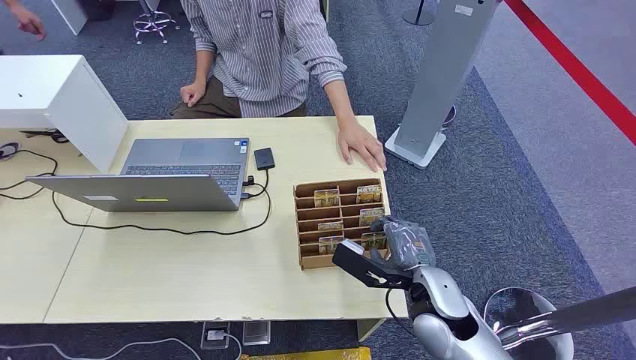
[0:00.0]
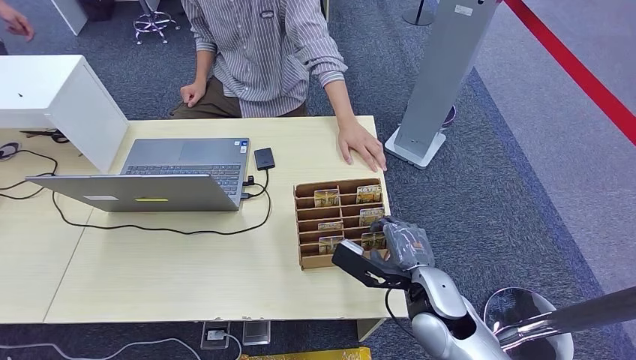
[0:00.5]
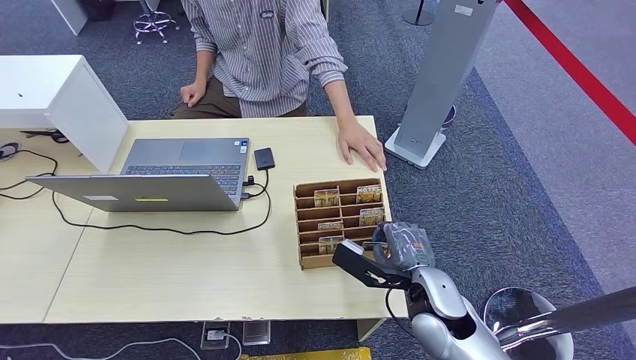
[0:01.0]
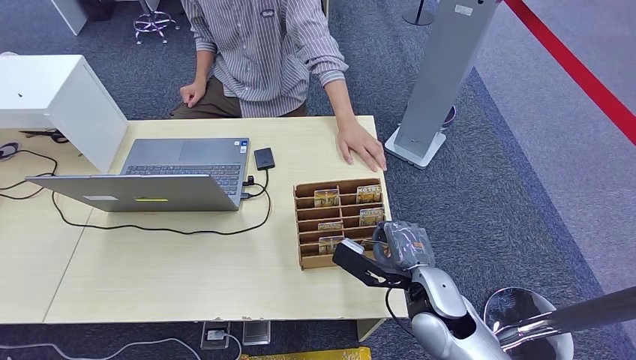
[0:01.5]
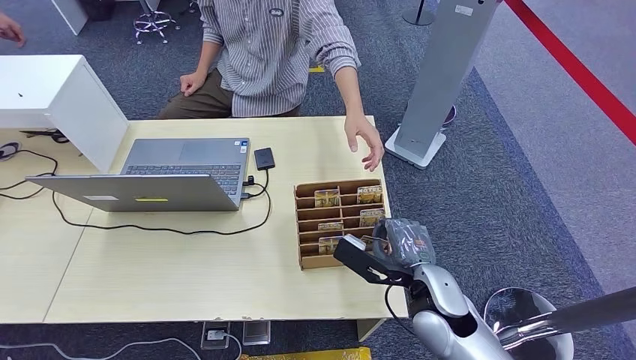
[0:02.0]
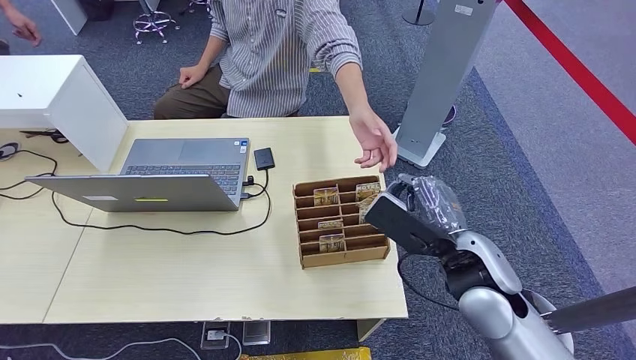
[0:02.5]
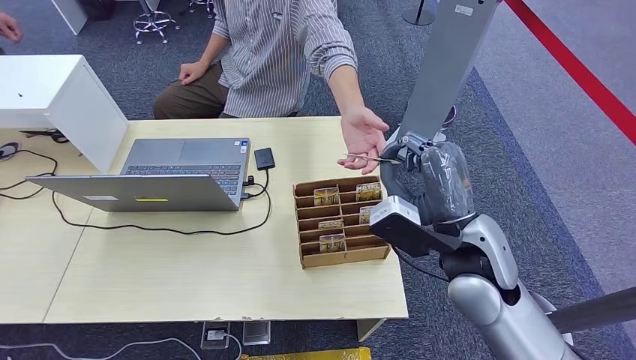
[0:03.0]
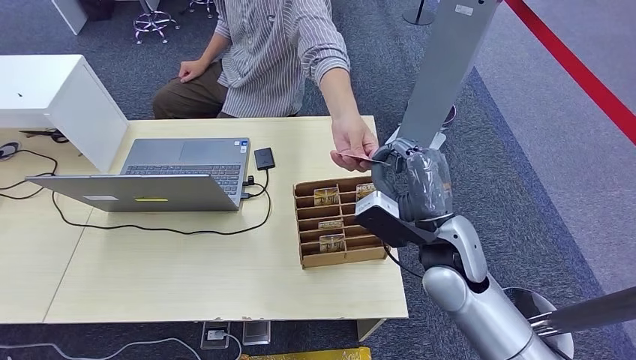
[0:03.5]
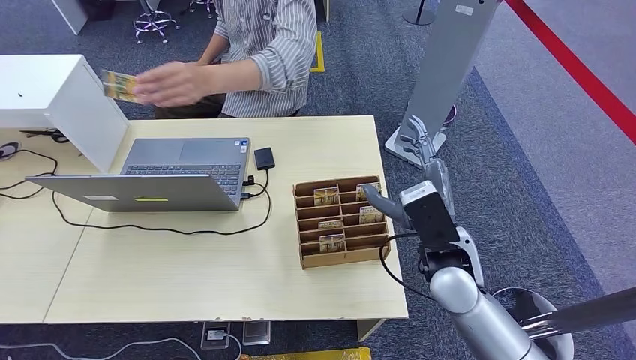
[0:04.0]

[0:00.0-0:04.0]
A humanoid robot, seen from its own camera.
Step, 0:00.0 to 0:02.5: Pick up the room card from the card holder.
Step, 0:03.5 to 0:04.0: Hand the room card to the target.
0:02.0 to 0:04.0: The right hand travels upward by about 5 cm.

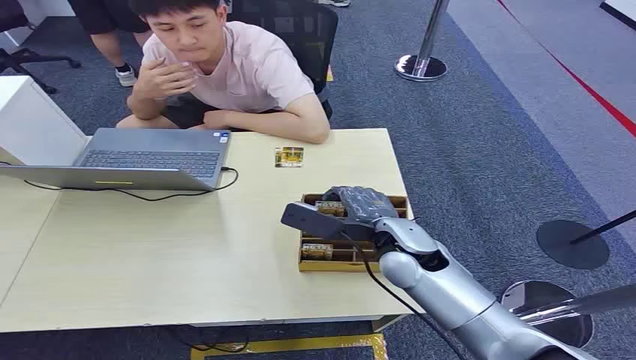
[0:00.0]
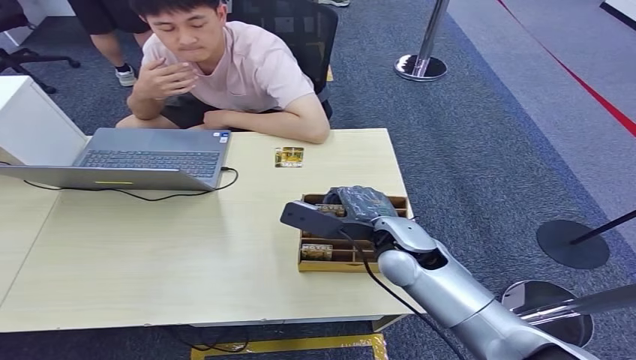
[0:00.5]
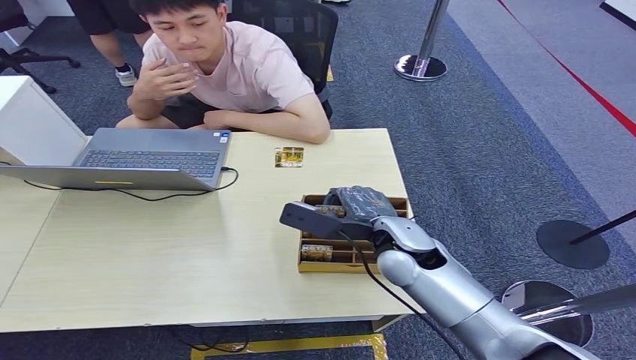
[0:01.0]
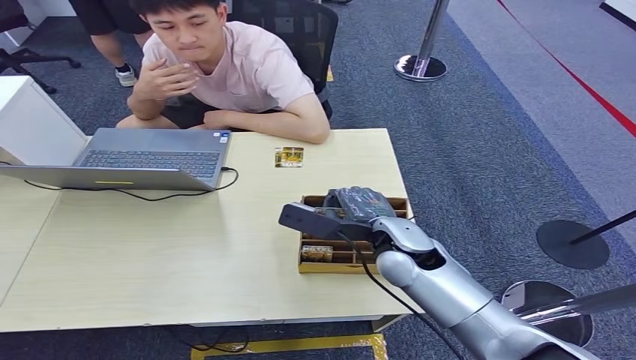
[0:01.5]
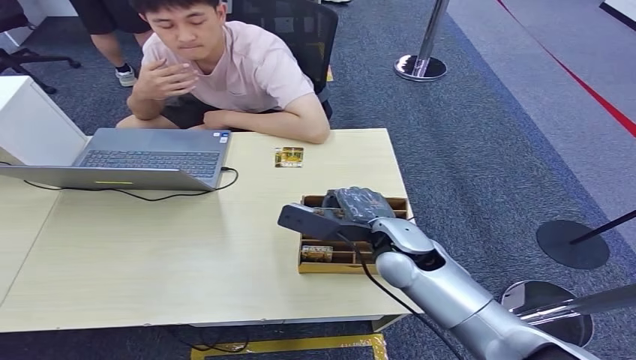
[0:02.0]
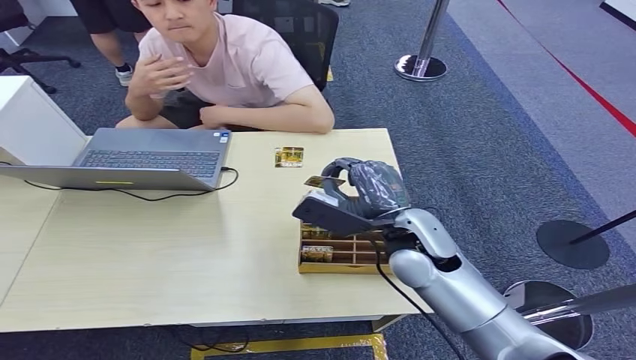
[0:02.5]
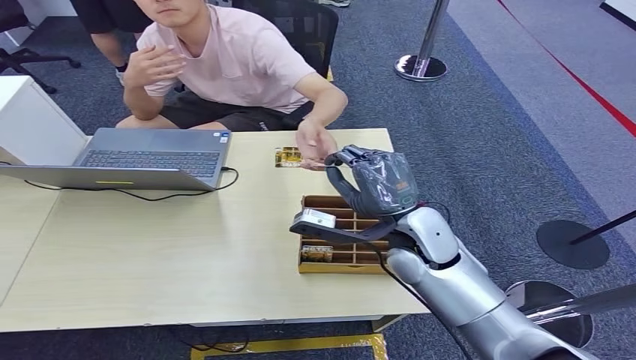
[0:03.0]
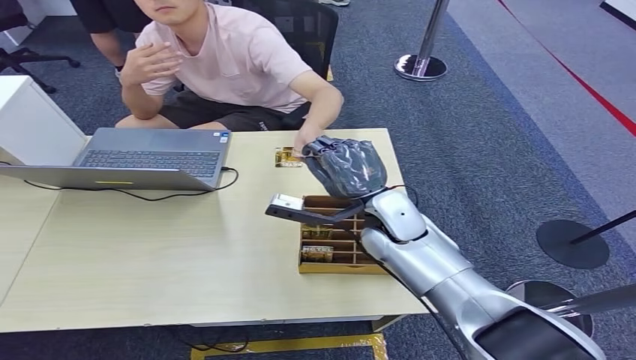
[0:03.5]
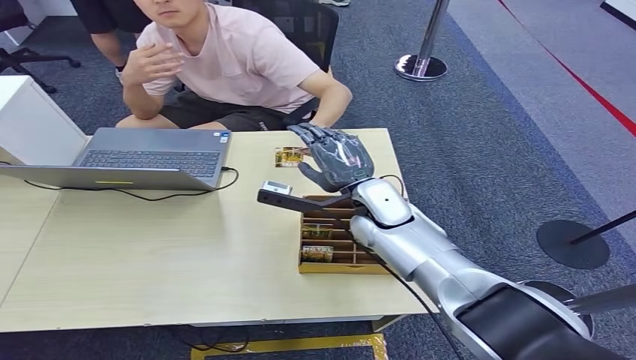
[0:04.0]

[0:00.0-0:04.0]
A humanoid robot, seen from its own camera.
Step, 0:02.5 to 0:04.0: Hand the room card to the target.
0:02.0 to 0:04.0: The right hand goes roughly 10 cm forward.
